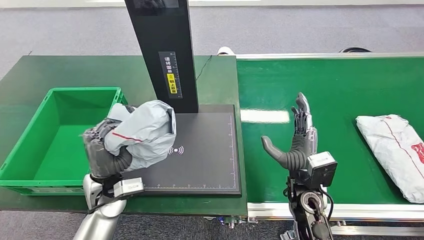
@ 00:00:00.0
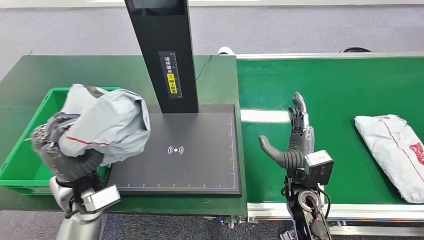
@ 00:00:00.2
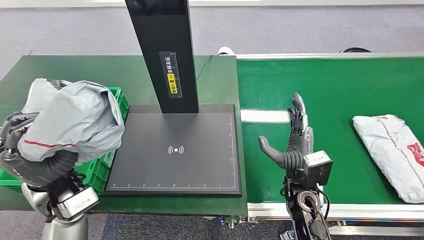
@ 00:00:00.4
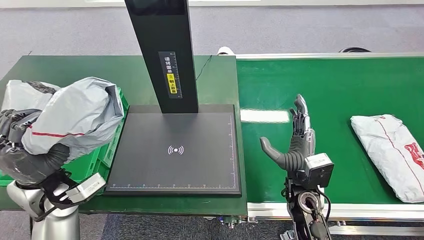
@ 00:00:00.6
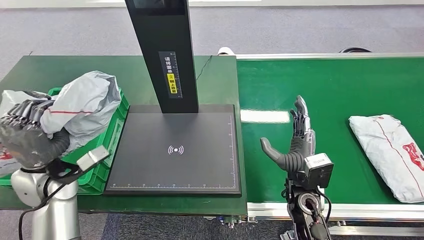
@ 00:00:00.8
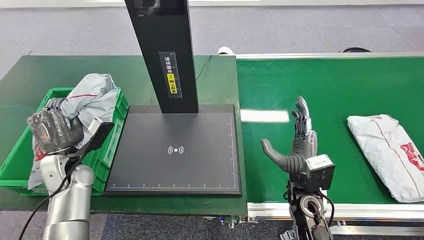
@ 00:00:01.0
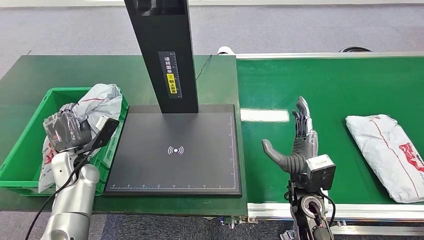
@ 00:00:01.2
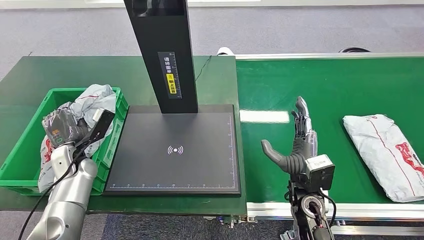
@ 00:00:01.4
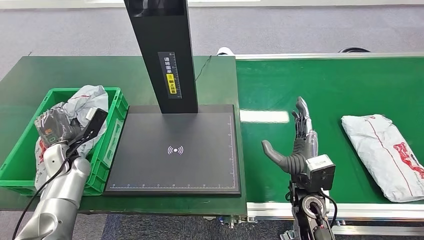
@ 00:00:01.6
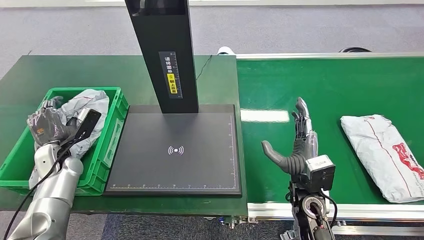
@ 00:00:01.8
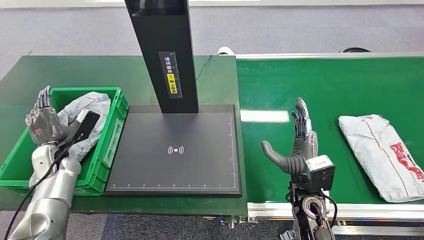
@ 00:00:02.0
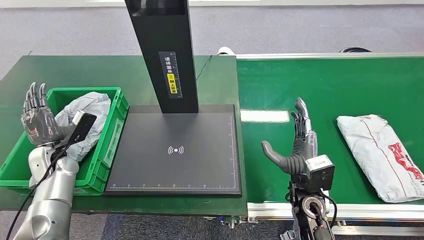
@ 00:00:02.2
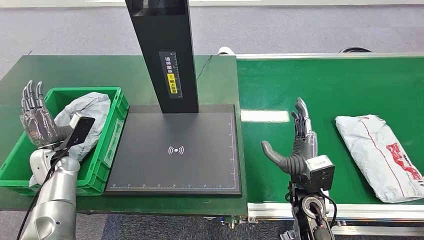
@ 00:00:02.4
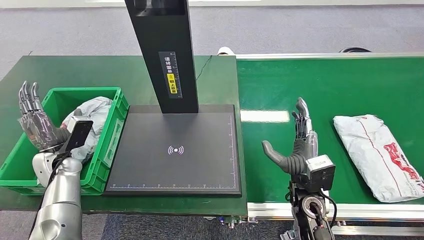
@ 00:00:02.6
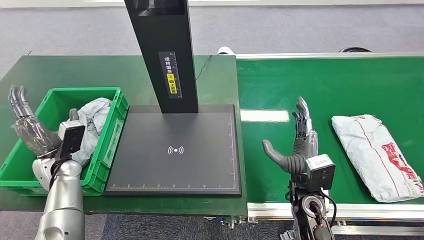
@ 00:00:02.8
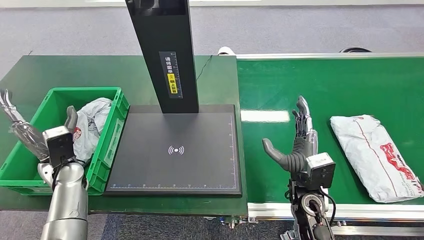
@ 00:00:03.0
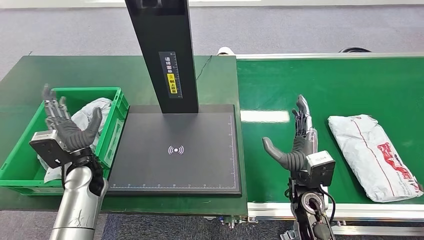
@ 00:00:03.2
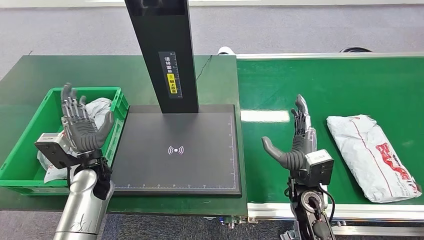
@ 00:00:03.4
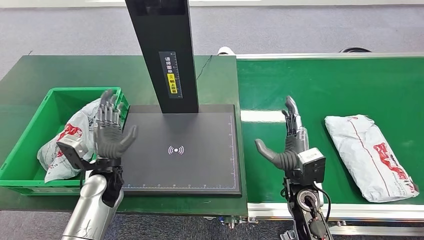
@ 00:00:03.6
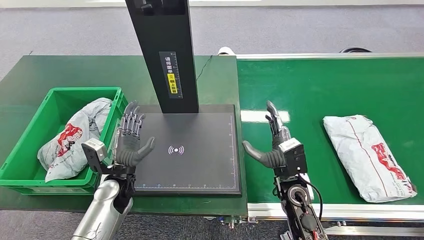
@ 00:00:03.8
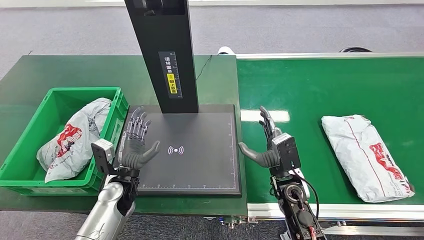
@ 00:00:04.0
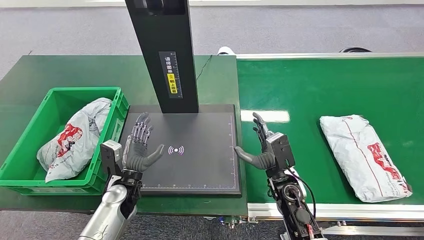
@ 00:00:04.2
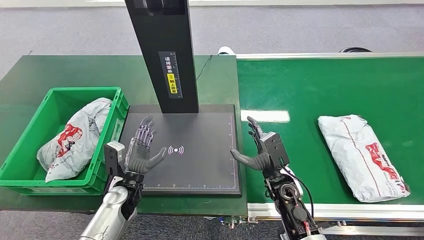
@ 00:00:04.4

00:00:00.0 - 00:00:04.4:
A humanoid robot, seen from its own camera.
Step, 00:00:00.2 - 00:00:04.4: Place the package into the parcel locker.
00:00:03.0 - 00:00:04.4: The left hand travels to the right and downward by approximately 15 cm; the right hand heads downward, covering about 5 cm.

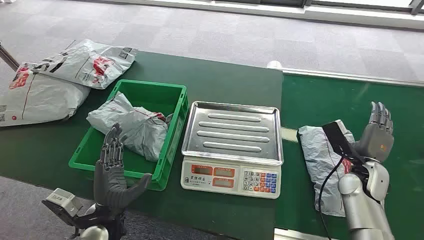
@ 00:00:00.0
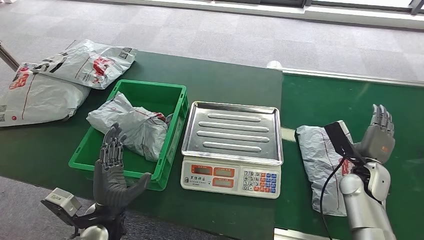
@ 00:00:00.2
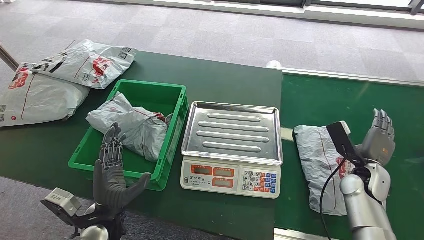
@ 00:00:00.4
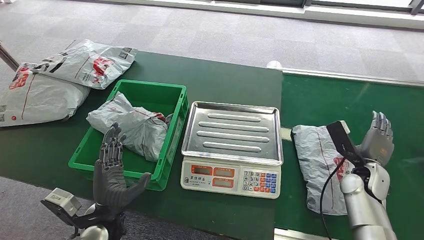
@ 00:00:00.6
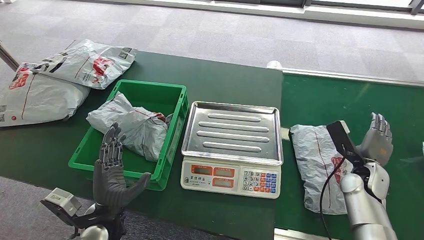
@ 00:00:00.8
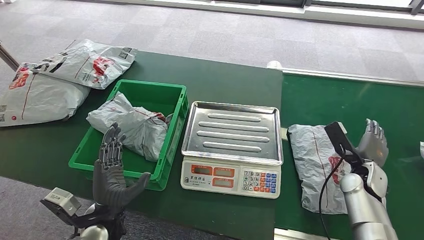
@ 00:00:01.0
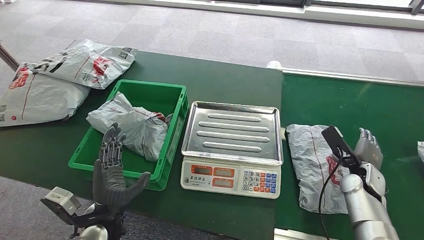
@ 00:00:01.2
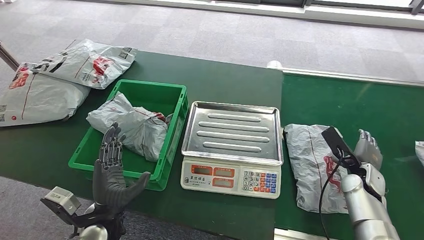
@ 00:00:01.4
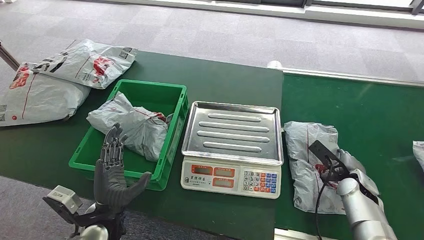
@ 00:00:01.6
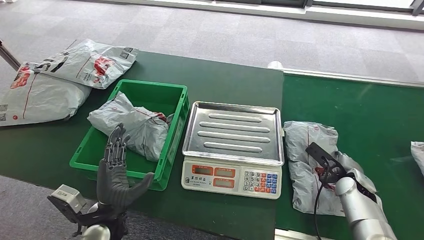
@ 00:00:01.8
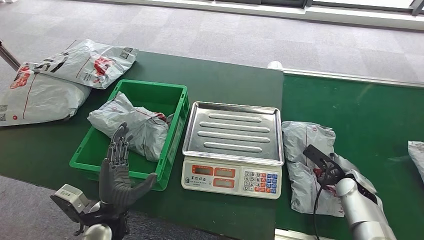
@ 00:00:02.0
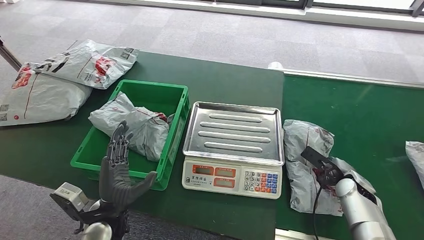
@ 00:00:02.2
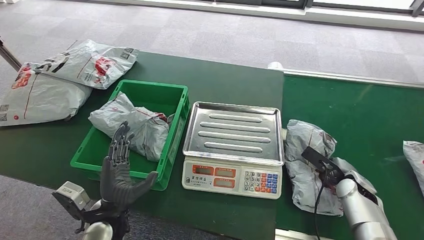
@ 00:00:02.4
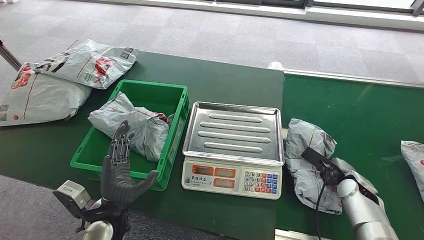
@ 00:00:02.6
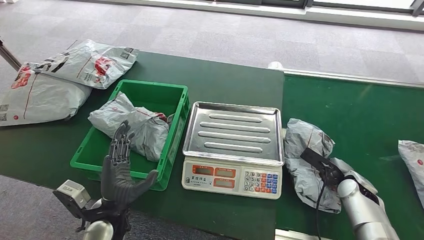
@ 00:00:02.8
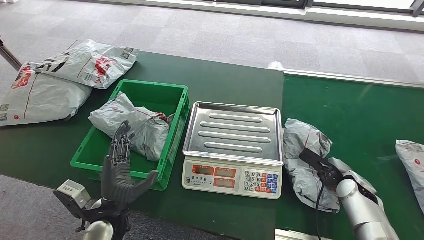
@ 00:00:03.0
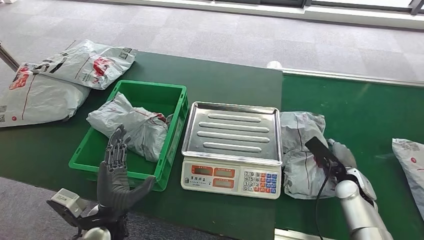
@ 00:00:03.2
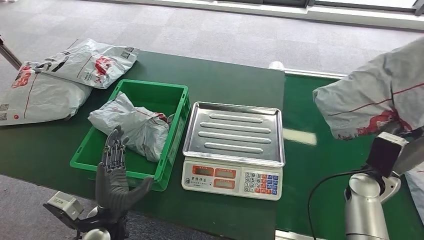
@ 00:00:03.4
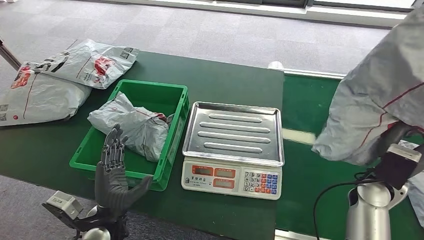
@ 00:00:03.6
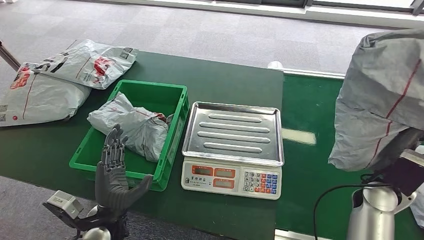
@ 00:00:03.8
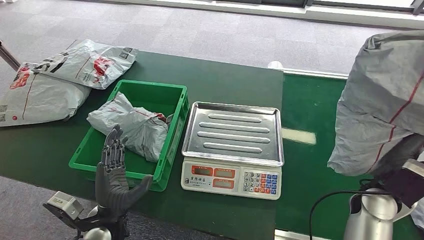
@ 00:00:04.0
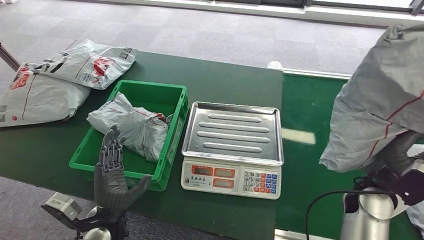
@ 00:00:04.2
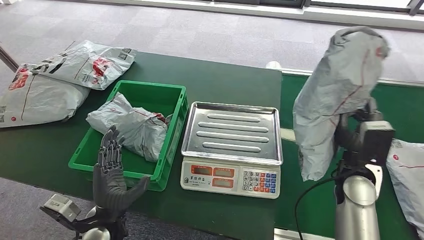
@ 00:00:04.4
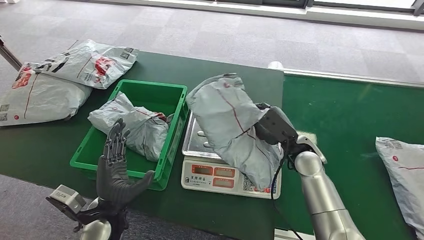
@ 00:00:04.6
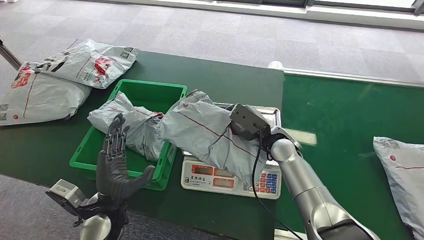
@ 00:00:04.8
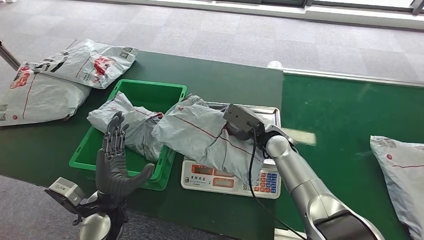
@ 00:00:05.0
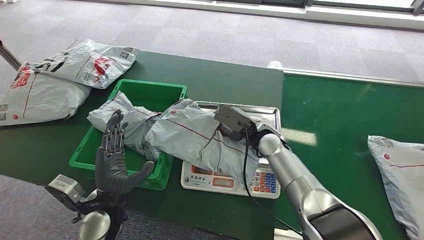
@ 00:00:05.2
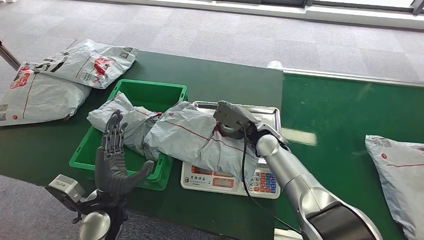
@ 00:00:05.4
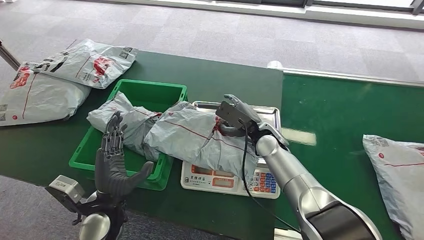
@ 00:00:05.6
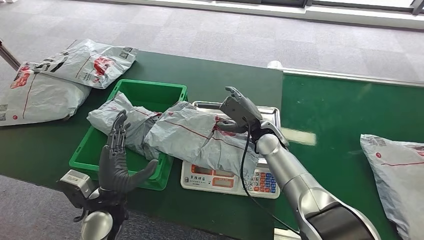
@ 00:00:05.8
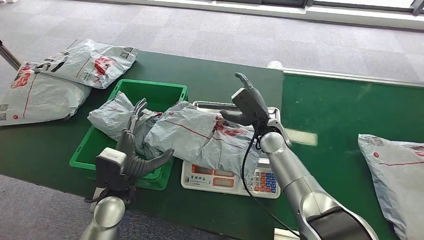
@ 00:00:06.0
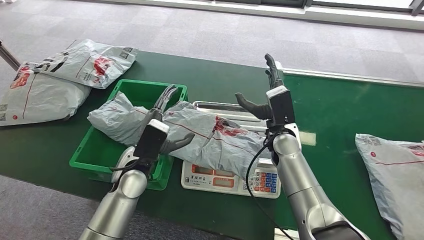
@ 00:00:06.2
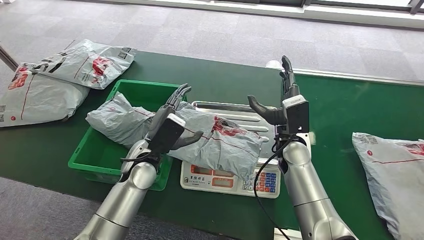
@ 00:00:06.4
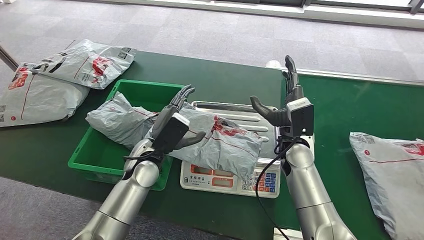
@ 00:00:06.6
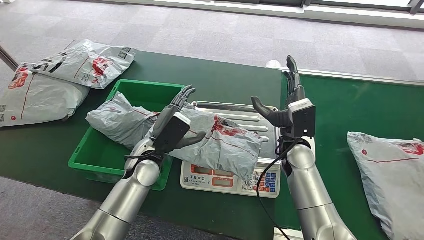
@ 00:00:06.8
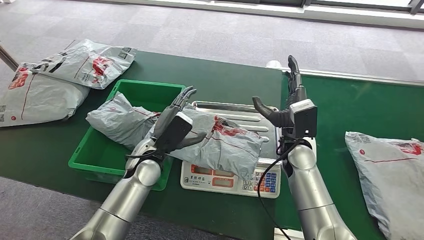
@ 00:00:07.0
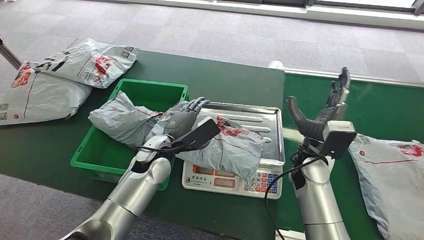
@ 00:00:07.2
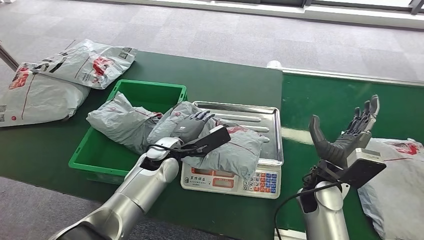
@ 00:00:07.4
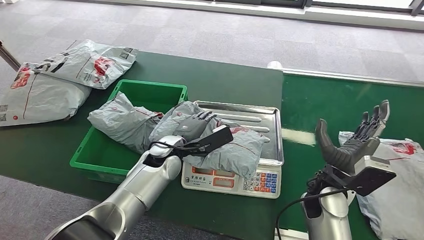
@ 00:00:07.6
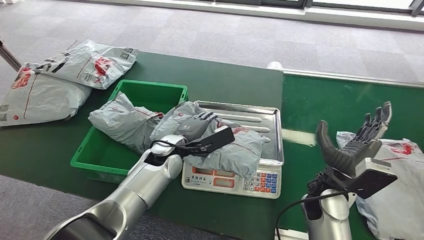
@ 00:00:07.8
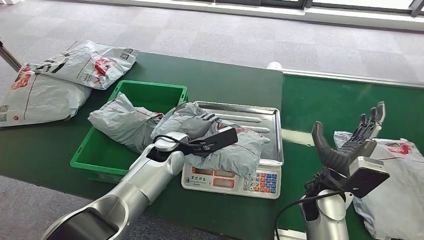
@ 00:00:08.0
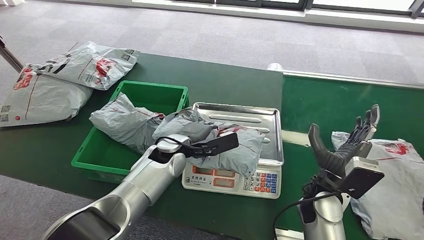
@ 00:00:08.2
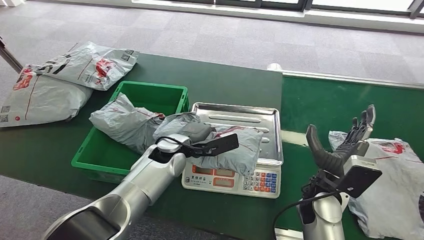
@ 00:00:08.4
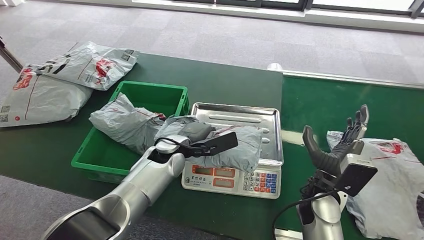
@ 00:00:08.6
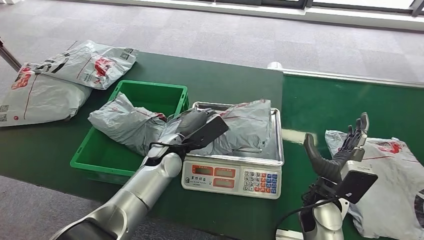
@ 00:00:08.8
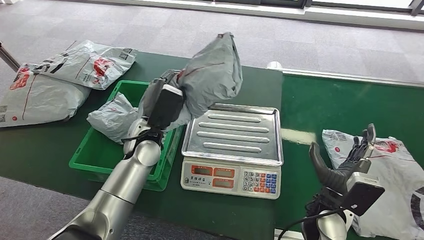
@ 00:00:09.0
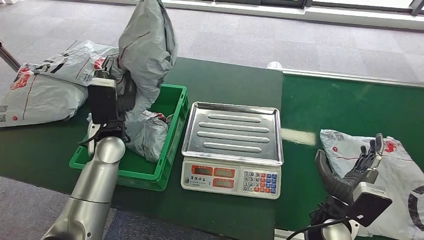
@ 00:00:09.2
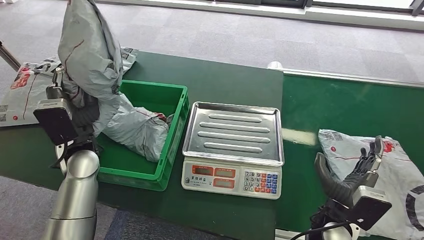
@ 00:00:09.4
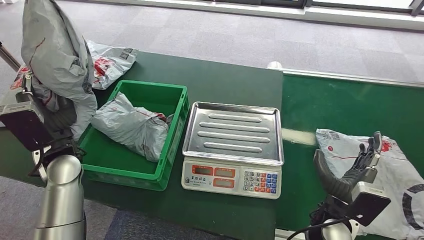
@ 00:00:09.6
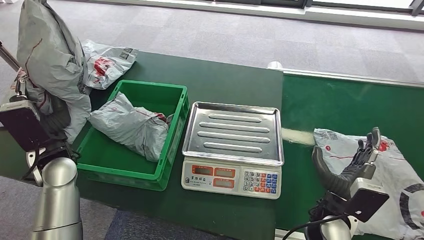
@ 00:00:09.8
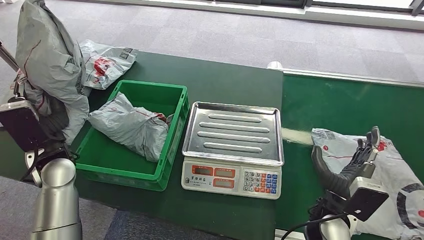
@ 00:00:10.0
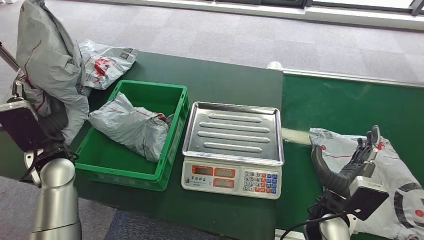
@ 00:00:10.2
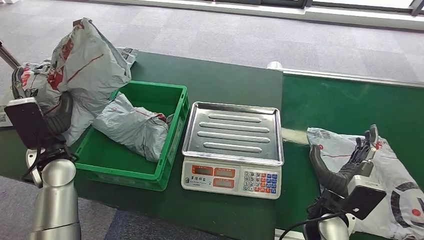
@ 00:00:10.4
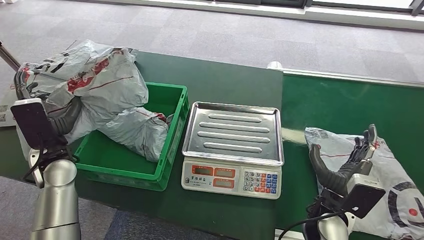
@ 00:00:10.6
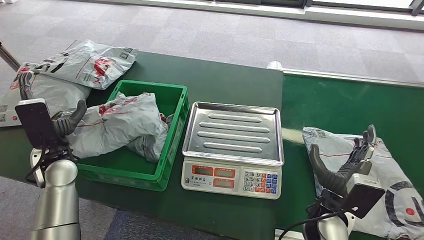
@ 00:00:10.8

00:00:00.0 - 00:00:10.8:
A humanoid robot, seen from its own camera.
Step, 00:00:00.0 - 00:00:03.8: Pick up the package from the conveyor belt.
Step, 00:00:04.0 - 00:00:05.8: Place the package onto the inbound machine.
Step, 00:00:06.0 - 00:00:08.8: Pick up the package from the inbound machine.
Step, 00:00:09.0 - 00:00:10.8: Place the package into the parcel locker.
00:00:01.6 - 00:00:03.0: There are only small adjustments of the hands.
